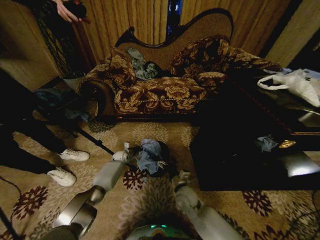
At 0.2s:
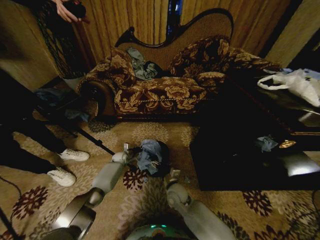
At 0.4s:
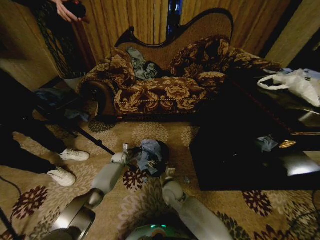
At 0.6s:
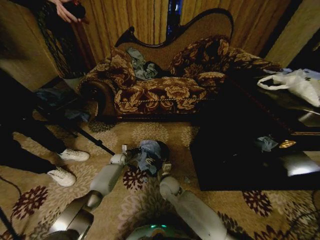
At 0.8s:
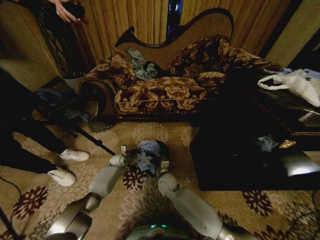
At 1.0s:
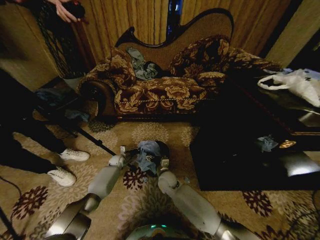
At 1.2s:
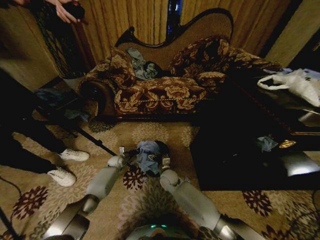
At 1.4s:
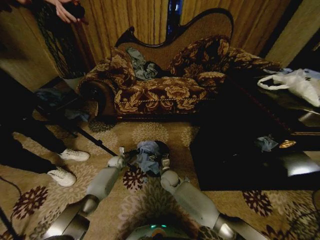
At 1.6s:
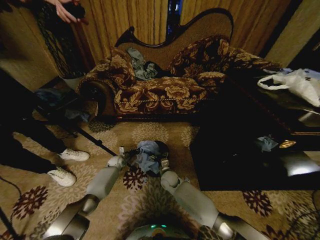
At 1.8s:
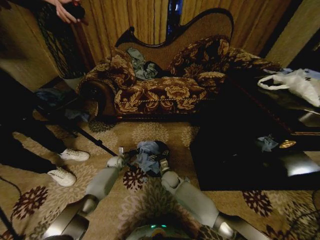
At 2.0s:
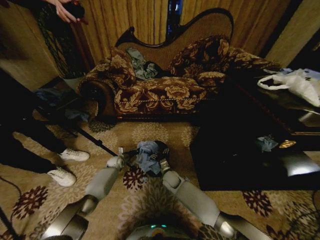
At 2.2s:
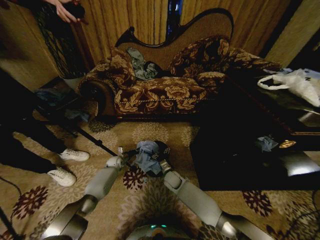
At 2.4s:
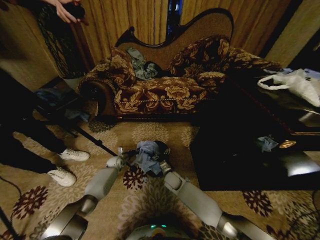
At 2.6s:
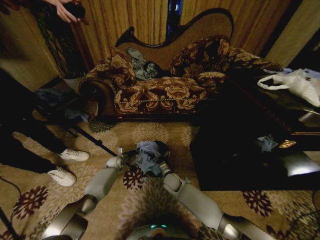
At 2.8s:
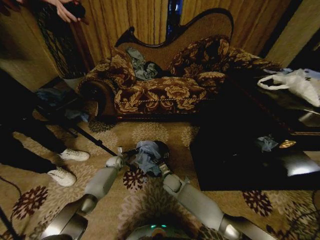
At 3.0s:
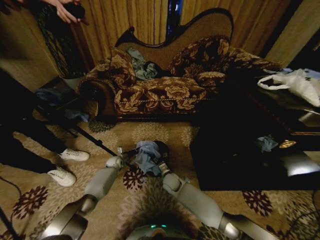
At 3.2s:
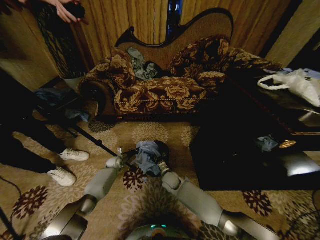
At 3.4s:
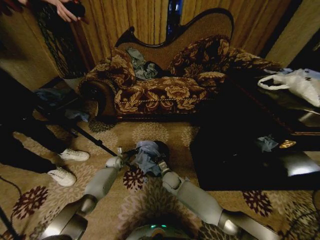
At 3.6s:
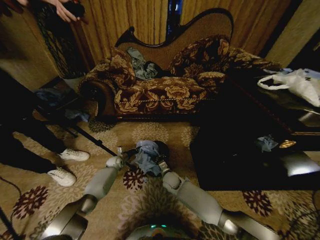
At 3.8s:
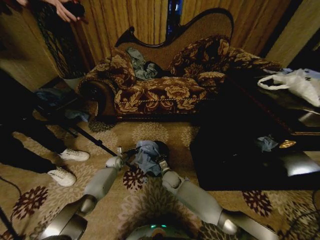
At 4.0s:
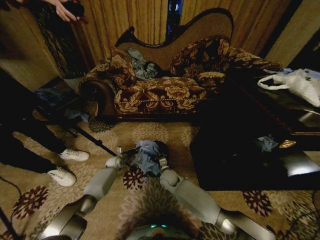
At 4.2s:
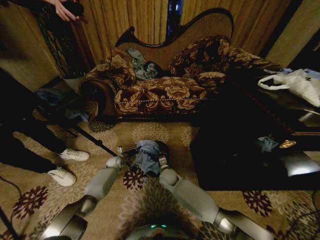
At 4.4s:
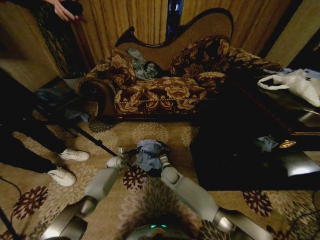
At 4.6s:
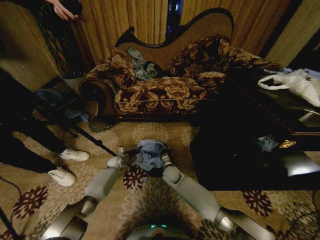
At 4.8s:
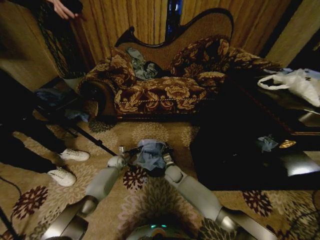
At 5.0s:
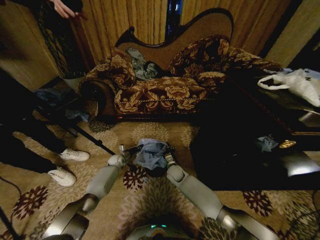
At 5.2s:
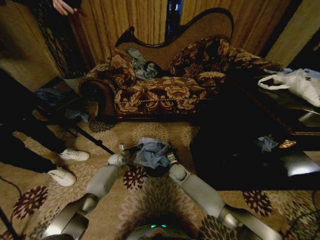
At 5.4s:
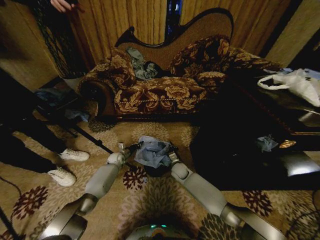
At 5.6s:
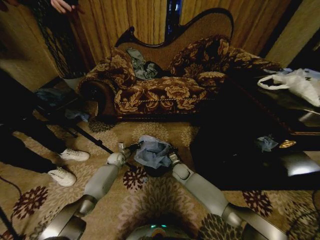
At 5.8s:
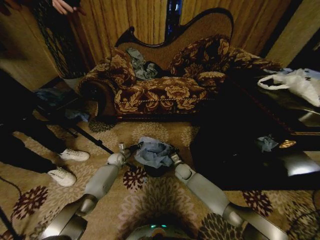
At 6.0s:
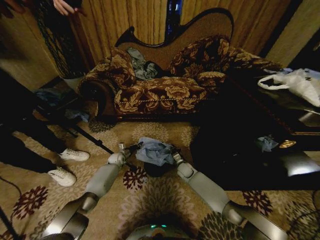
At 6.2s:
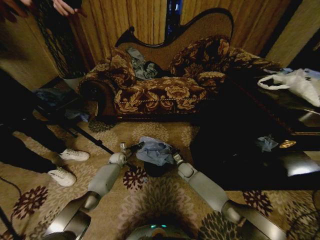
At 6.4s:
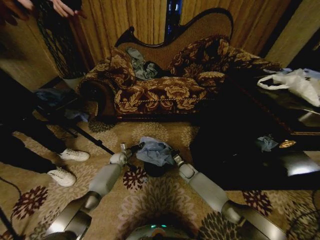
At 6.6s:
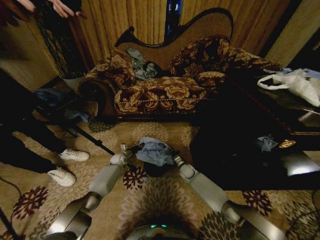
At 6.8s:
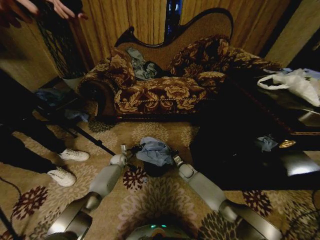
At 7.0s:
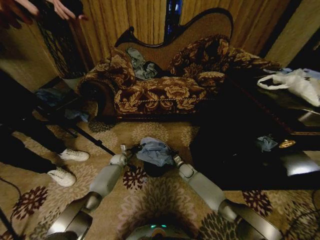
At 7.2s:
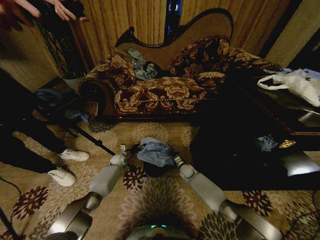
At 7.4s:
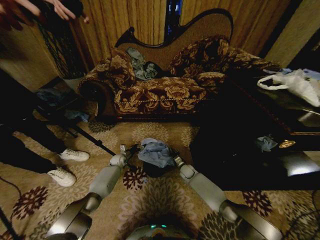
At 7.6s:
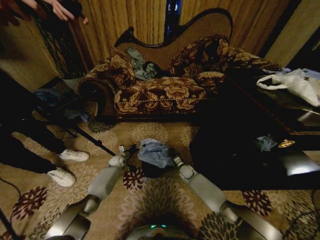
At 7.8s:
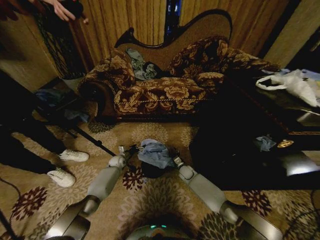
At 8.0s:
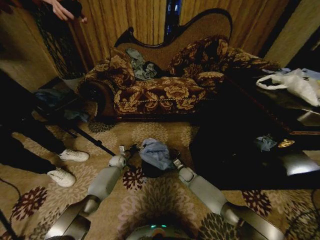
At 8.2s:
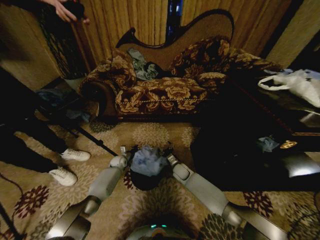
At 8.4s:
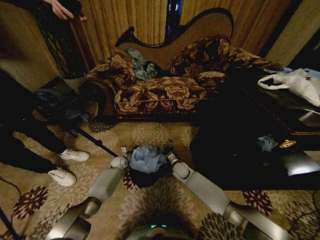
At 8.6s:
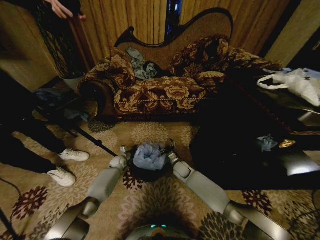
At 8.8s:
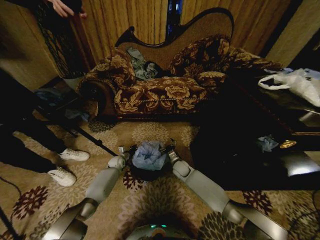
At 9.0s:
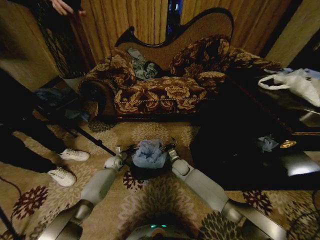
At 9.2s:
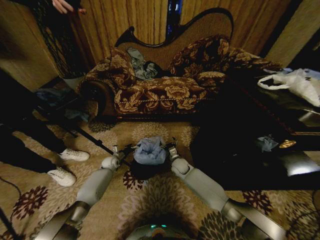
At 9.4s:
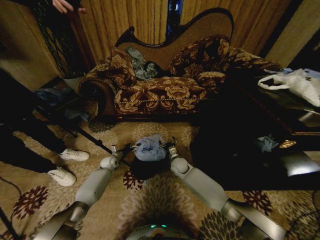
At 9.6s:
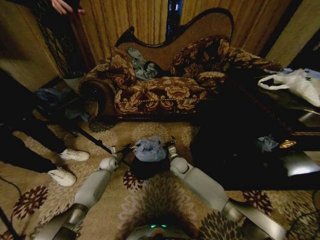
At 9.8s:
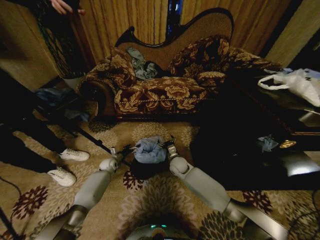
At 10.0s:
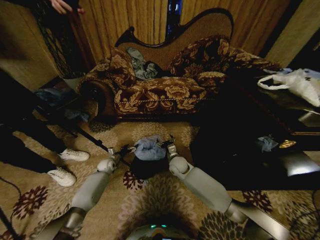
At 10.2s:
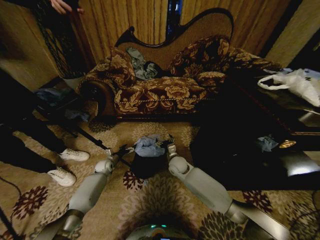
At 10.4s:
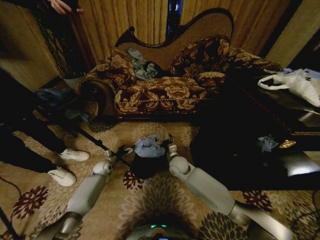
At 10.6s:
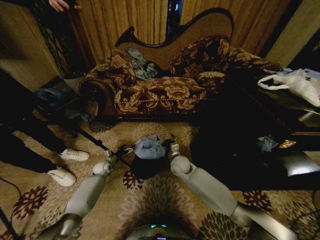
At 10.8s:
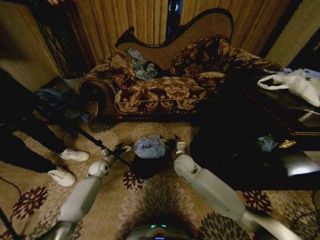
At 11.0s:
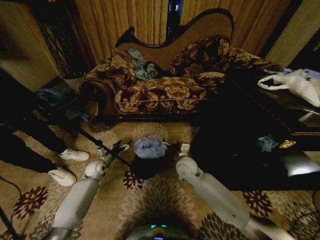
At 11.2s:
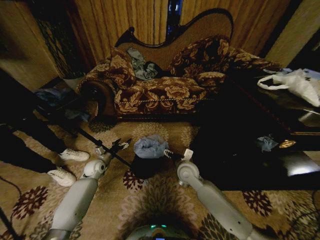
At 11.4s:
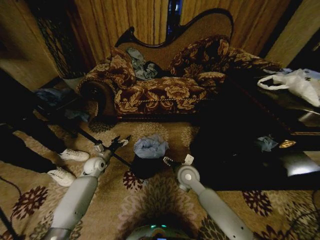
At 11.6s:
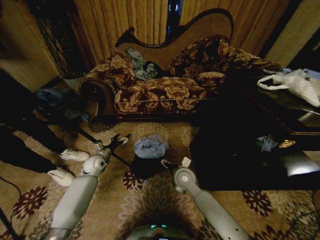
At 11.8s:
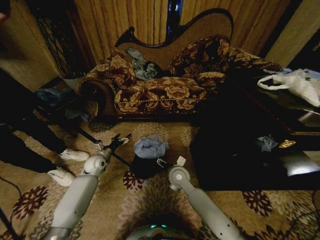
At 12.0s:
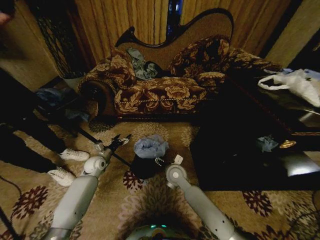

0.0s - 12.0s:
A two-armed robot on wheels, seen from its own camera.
Task of the whole recording: Place a garbage bag over the trash bin.
0.0s - 1.6s: The right gripper travels forward, to the left and downward by some 15 cm.
3.0s - 4.4s: The right gripper closes.
4.4s - 6.0s: The right gripper goes about 10 cm to the right and forward.
6.0s - 7.6s: The left gripper opens.
7.6s - 9.0s: The right gripper heads upward and to the left, covering approximately 10 cm, and opens its fingers.
9.0s - 10.4s: The left gripper is displaced to the left by about 5 cm; the right gripper travels upward by approximately 5 cm.
10.4s - 12.0s: The left gripper heads upward, covering roughly 10 cm. Meanwhile the right gripper moves backward, approximately 5 cm.

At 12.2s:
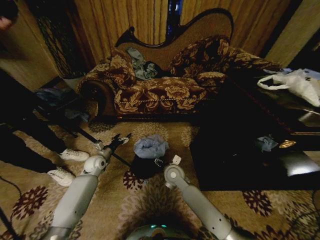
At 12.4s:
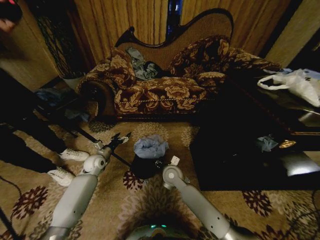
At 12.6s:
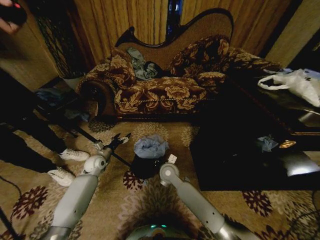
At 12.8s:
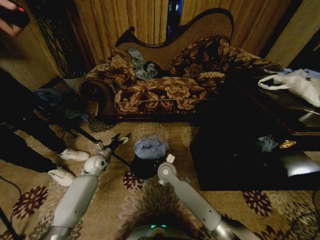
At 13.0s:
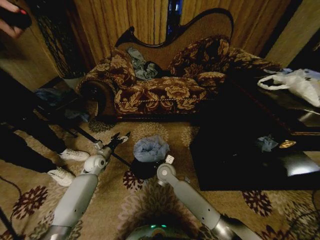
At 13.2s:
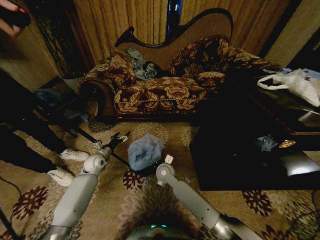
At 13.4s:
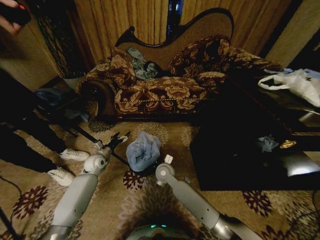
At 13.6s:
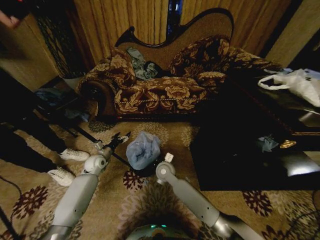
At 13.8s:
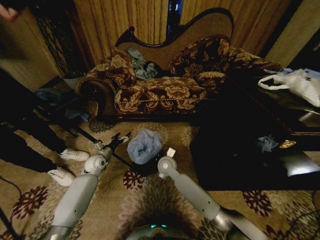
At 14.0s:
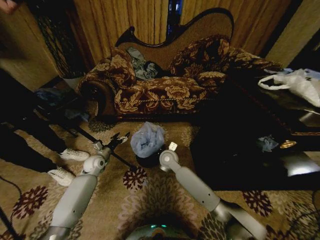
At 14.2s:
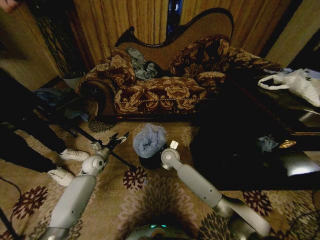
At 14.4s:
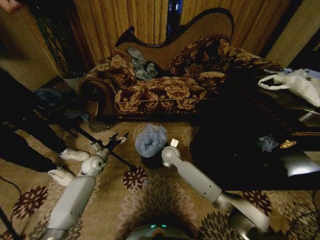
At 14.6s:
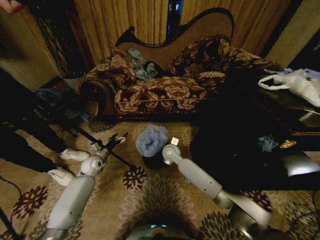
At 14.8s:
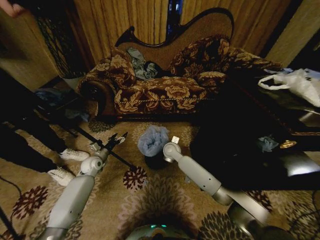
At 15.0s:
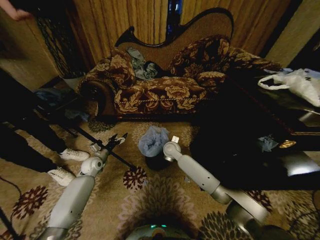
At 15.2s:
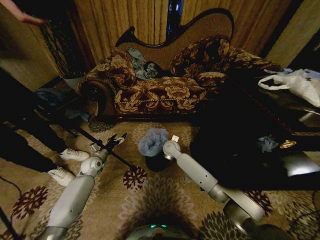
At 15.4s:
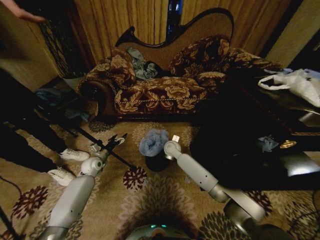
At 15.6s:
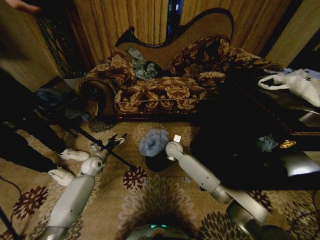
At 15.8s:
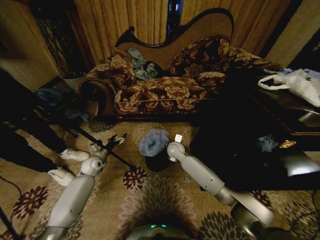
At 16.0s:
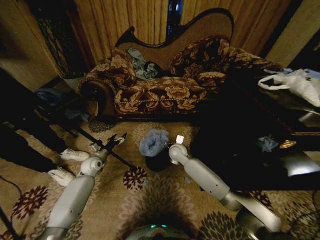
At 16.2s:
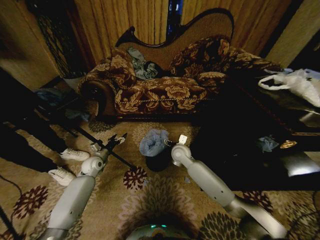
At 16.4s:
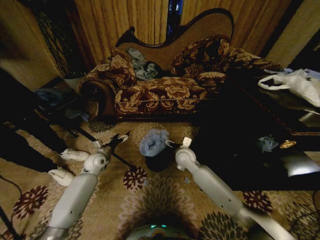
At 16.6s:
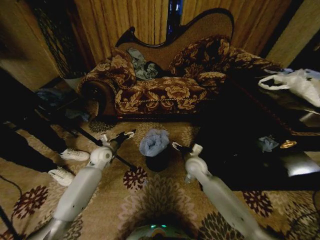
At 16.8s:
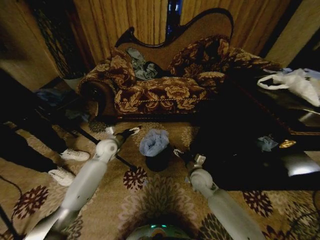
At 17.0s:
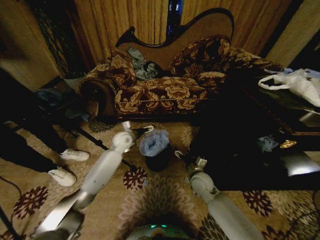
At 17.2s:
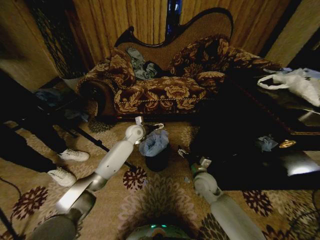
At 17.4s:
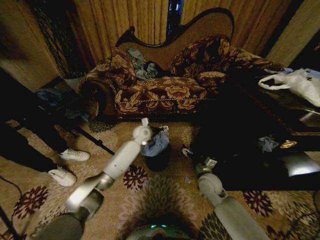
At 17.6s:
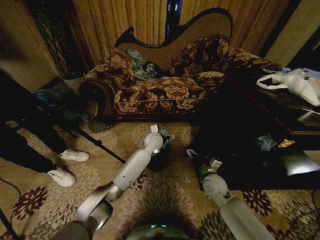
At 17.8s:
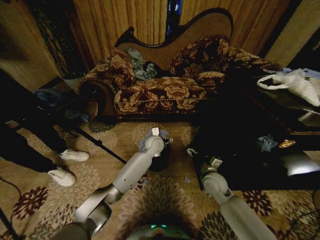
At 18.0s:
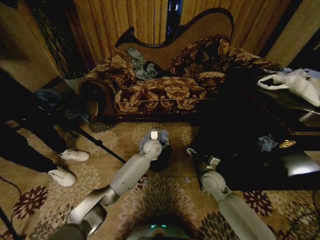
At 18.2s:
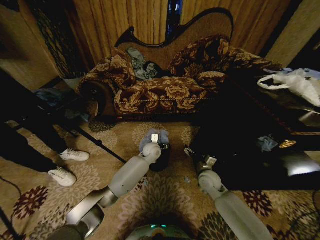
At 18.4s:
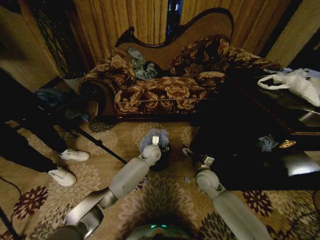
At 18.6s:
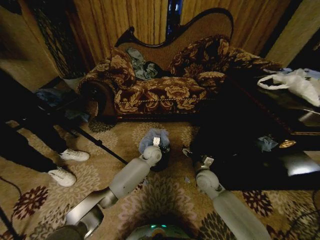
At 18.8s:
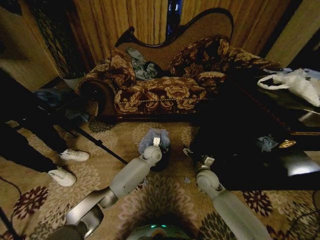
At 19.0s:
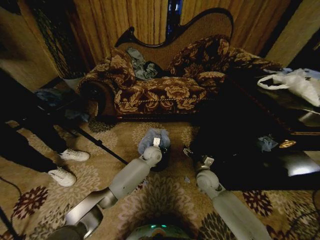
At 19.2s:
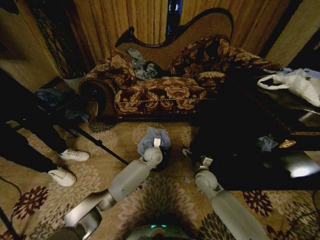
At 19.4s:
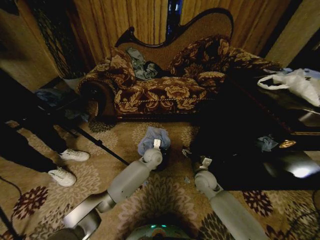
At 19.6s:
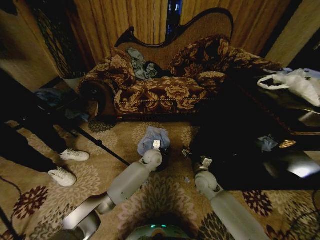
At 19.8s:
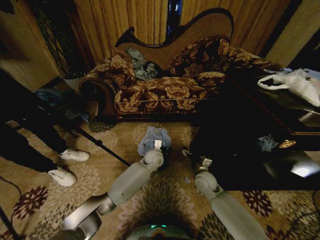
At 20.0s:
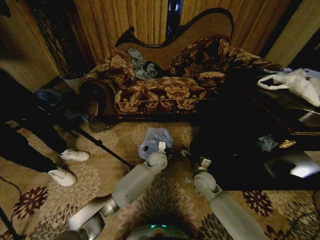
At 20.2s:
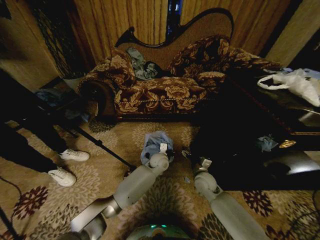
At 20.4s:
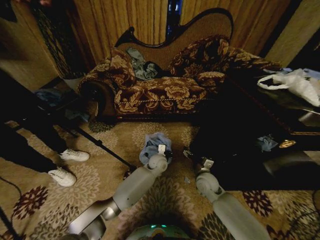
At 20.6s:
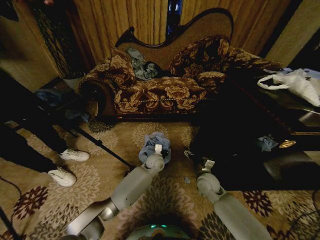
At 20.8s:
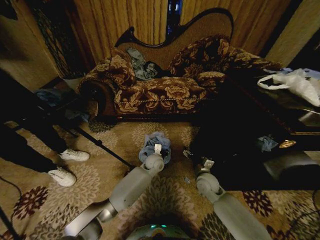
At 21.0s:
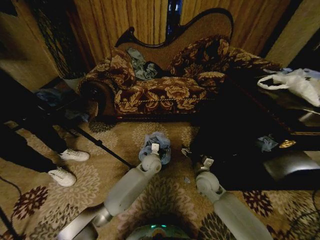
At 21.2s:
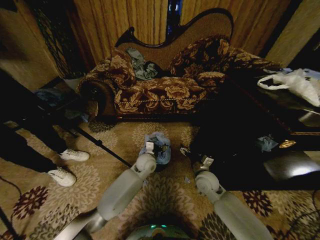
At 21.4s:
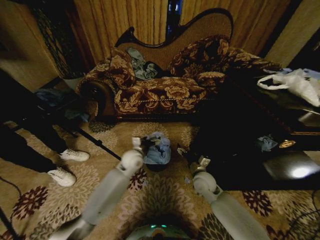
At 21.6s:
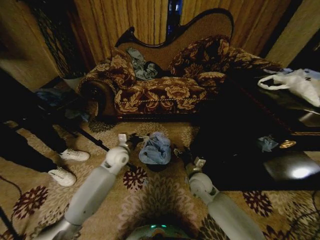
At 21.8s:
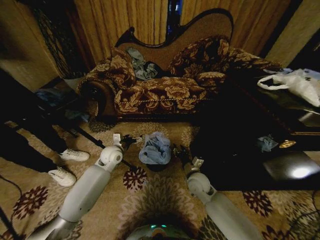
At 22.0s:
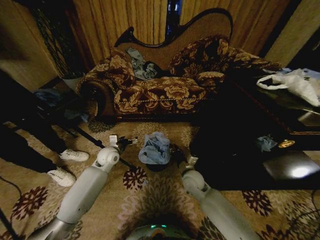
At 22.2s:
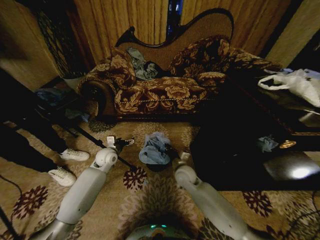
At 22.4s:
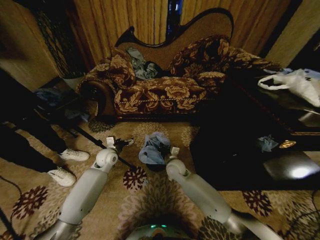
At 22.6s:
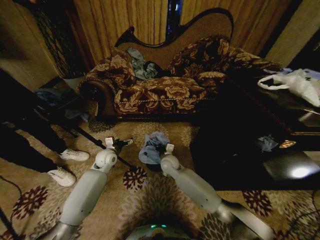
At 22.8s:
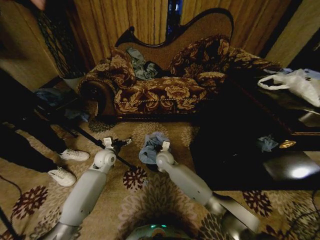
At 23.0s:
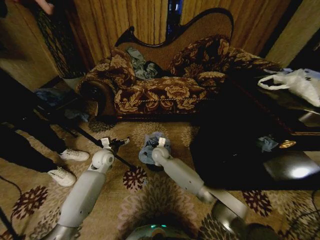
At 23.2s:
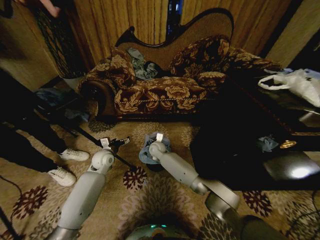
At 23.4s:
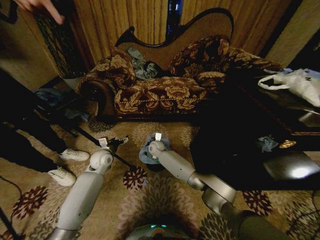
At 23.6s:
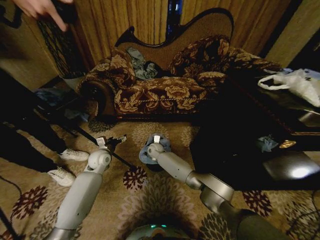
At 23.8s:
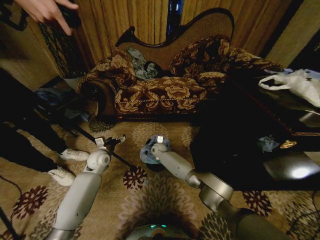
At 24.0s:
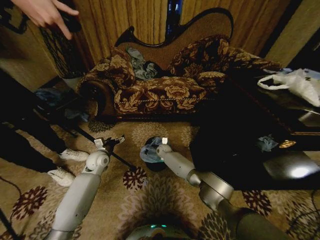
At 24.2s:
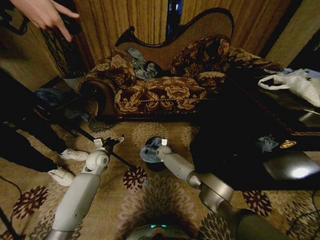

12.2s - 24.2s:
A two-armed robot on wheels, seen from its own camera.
Task of the whole recording: Place a garbage bag over the trash bin.
12.2s - 13.8s: The right gripper shifts by approximately 5 cm, and closes its fingers.
13.8s - 15.2s: The right gripper shifts approximately 10 cm forward.
15.2s - 16.6s: The right gripper goes roughly 15 cm to the right and backward, and opens its fingers; the left gripper shifts about 10 cm upward and to the right.
16.6s - 18.2s: The left gripper is displaced to the right by approximately 25 cm. The right gripper moves to the right, some 5 cm.
18.2s - 19.8s: The left gripper closes.
19.8s - 21.2s: The left gripper changes place by approximately 5 cm, and opens its fingers.
21.2s - 22.6s: The right gripper moves to the left and forward, roughly 20 cm, and closes up. The left gripper shifts roughly 20 cm to the left.
22.6s - 24.2s: The right gripper travels forward and downward by some 15 cm.
